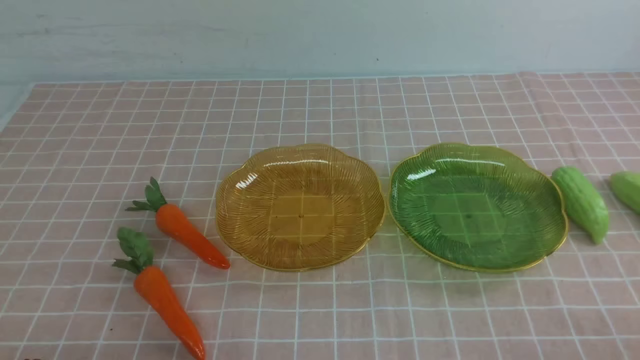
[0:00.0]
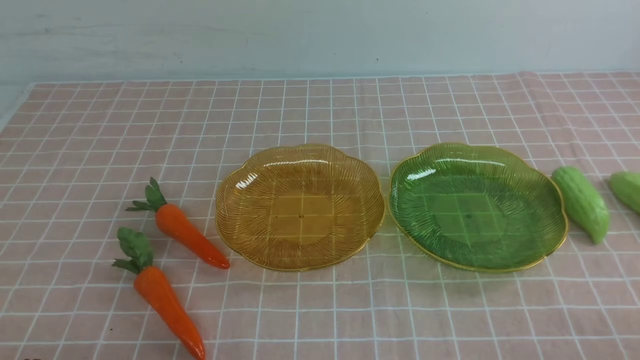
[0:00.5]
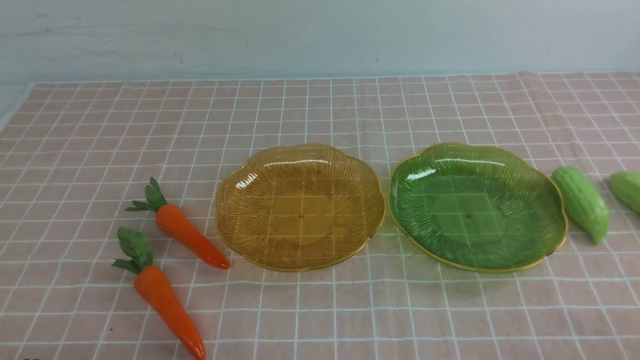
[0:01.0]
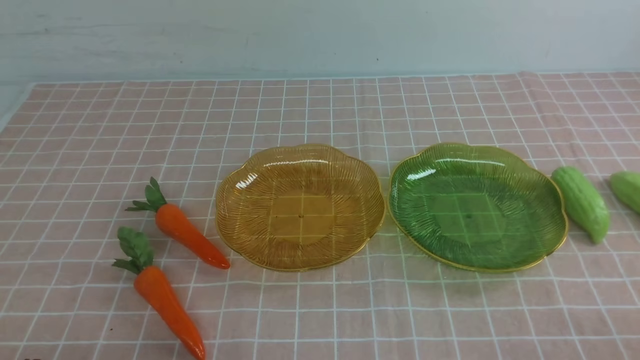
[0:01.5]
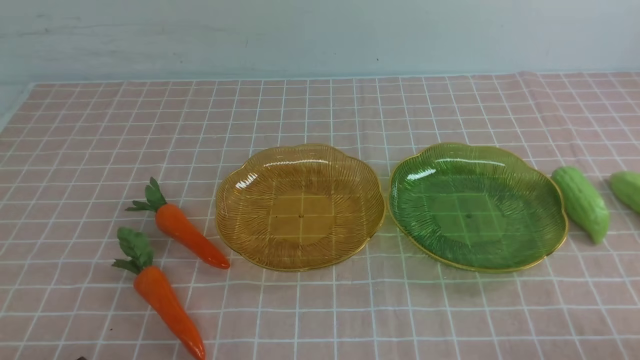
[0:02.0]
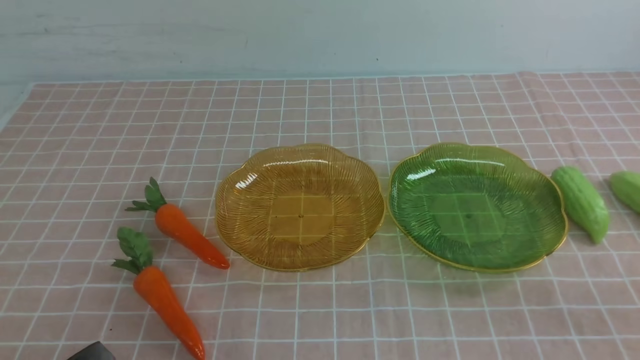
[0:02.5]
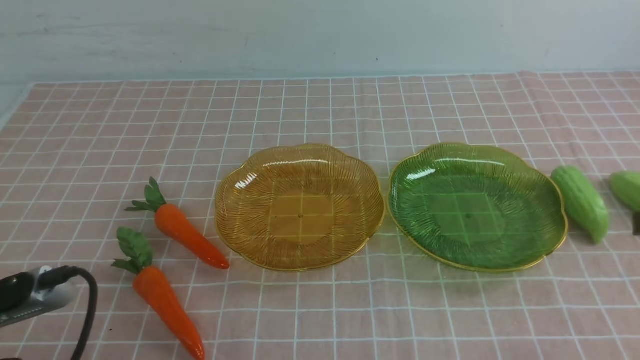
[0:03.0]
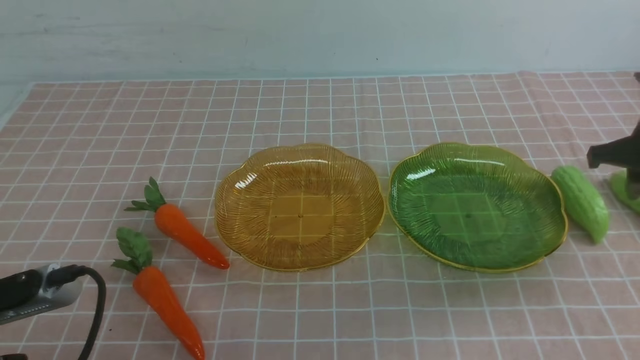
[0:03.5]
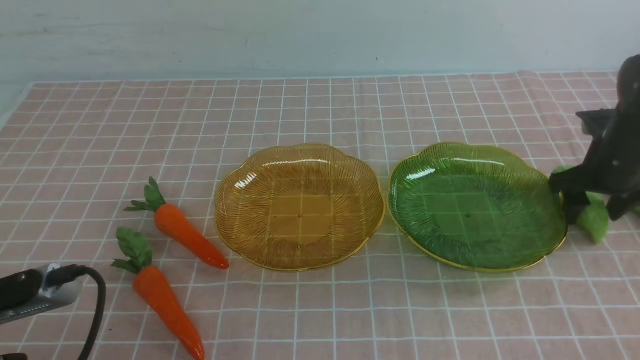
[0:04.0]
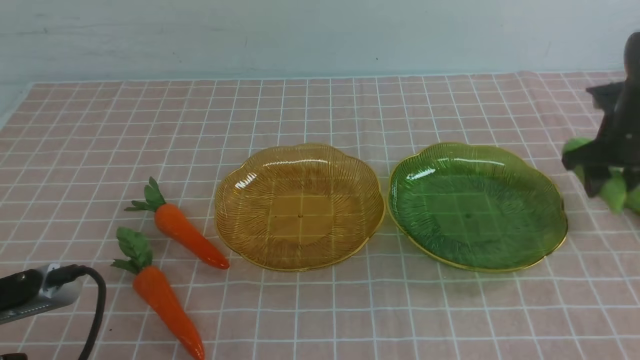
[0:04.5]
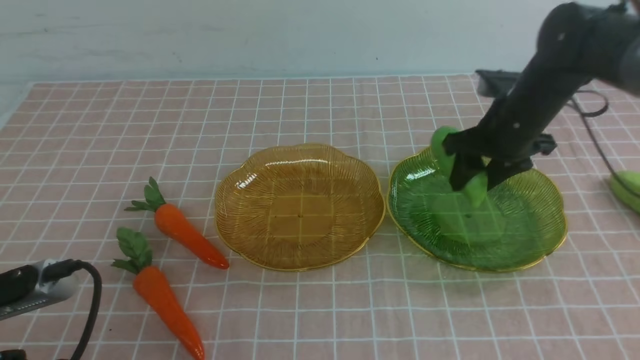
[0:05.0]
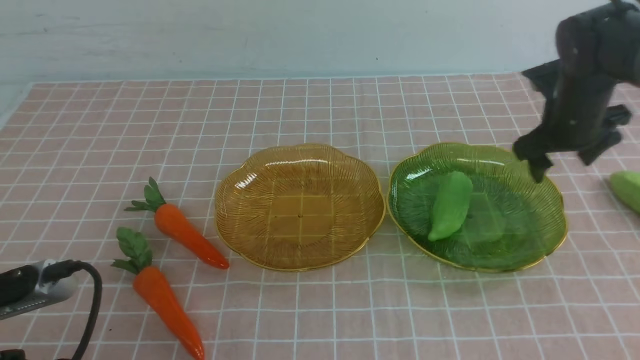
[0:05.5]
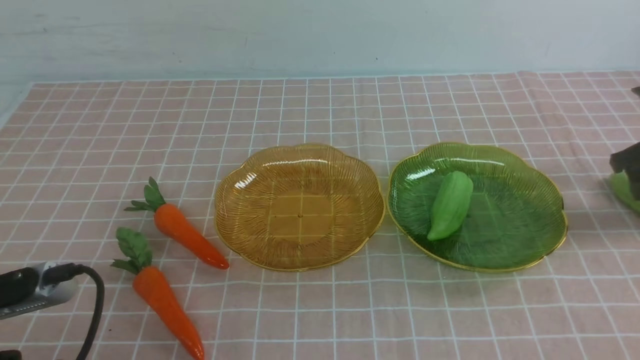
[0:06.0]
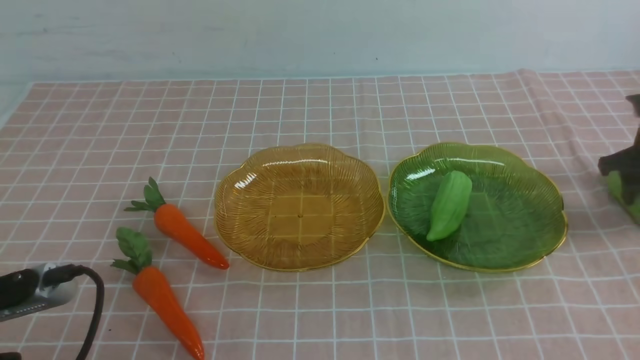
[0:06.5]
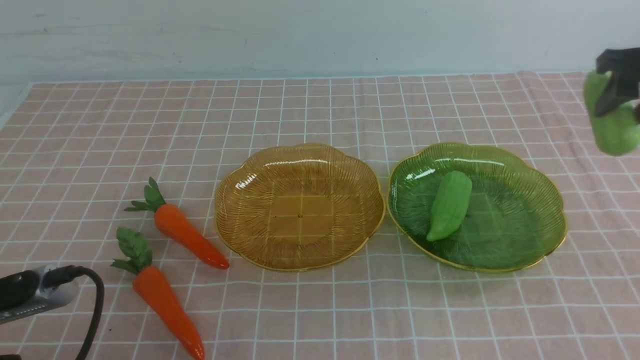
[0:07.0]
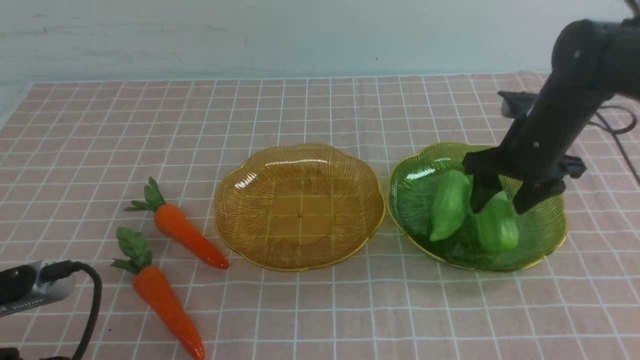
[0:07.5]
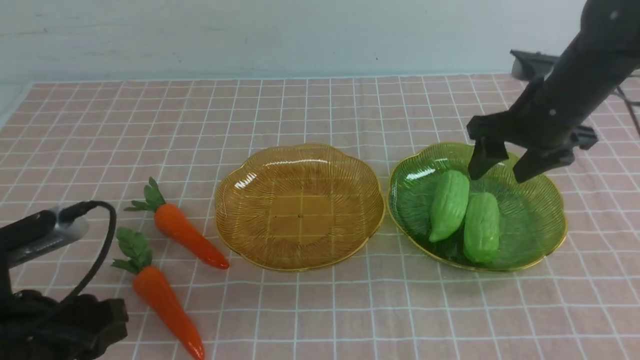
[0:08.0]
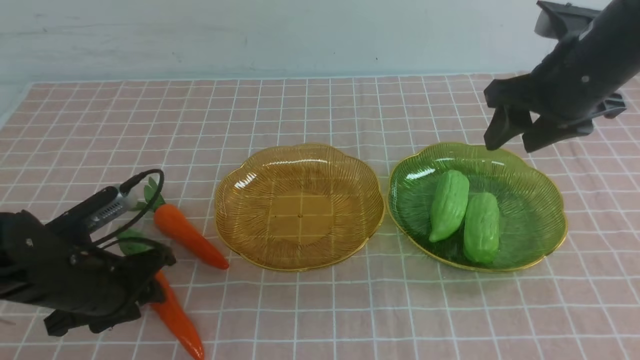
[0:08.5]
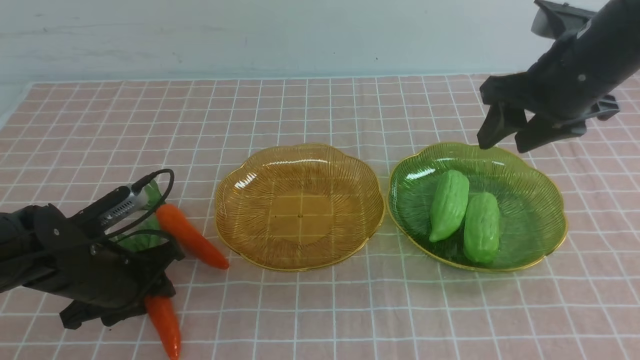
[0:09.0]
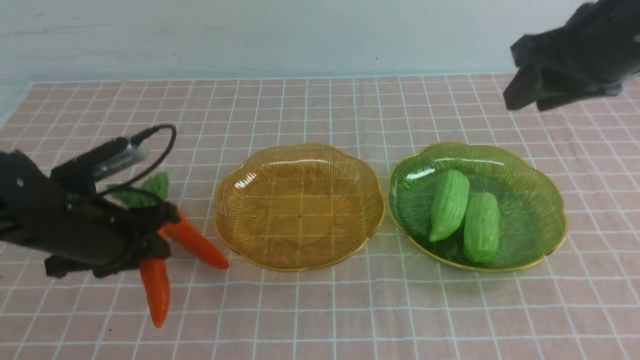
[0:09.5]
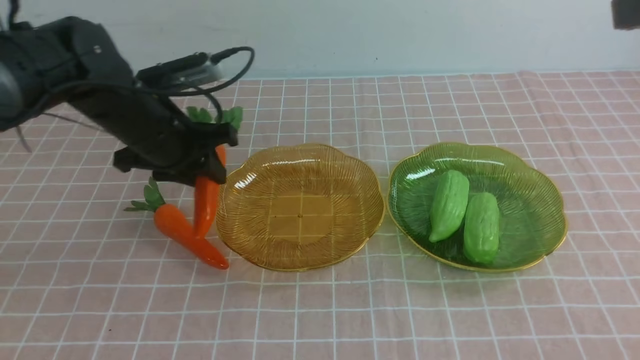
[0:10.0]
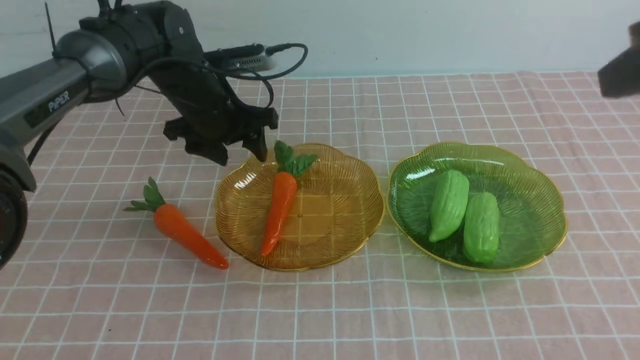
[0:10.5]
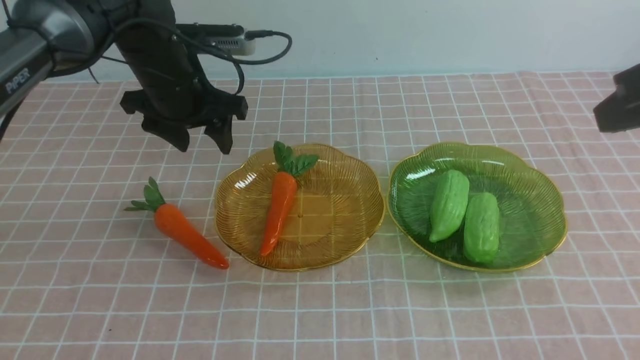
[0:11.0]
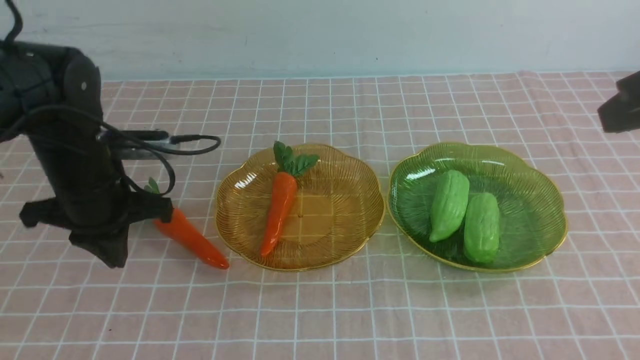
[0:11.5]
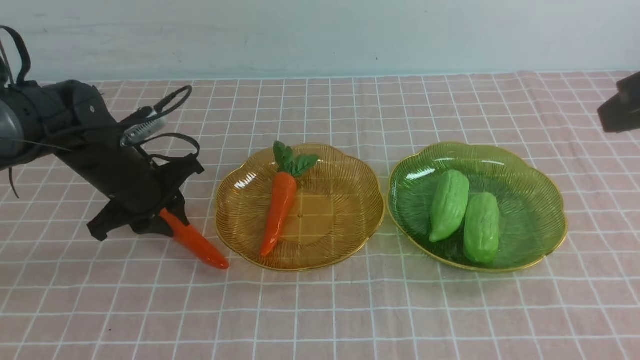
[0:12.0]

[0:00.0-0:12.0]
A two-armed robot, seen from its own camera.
Step, 0:00.0 to 0:07.5: use the right arm to grab a chayote and put it into the right plate.
0:02.0 to 0:04.0: The right gripper is displaced forward by approximately 35 cm, and opens up. The left gripper heads upward, covering some 5 cm.
0:04.0 to 0:06.0: The right gripper heads upward, covering some 5 cm, and reaches some 10 cm to the left, then returns.
0:06.0 to 0:08.0: The left gripper shifts roughly 20 cm forward and downward, and opens up. The right gripper heads to the left, backward and upward, covering approximately 20 cm.
0:08.0 to 0:10.0: The left gripper moves forward, upward and to the right, approximately 20 cm. The right gripper heads backward and upward, covering about 15 cm, and closes its fingers.
0:10.0 to 0:12.0: The left gripper shifts approximately 15 cm downward, to the left and backward, and closes, then opens again.

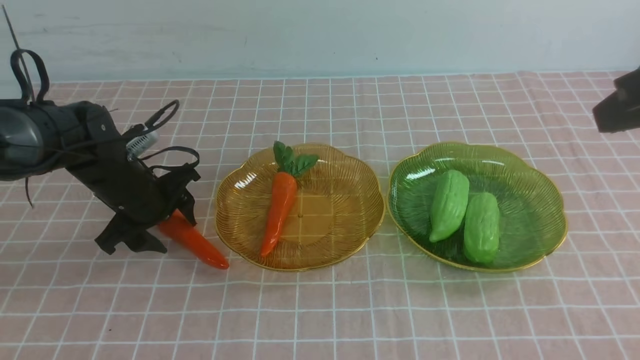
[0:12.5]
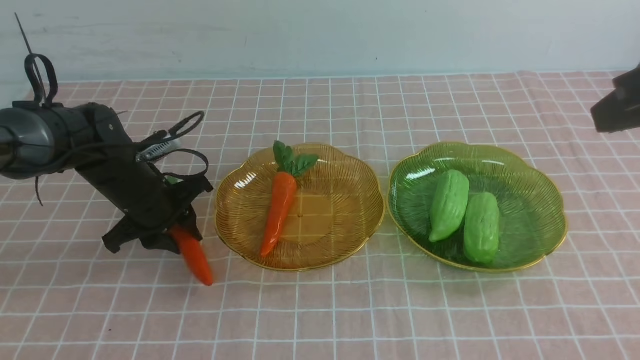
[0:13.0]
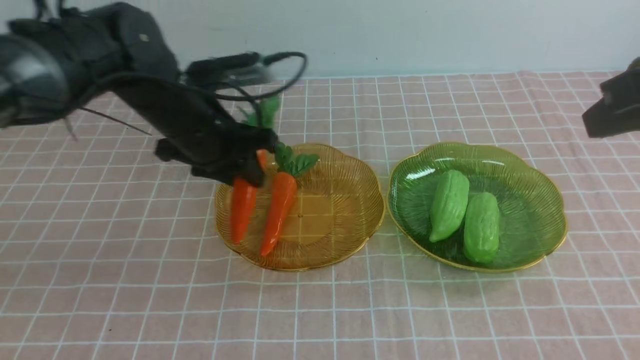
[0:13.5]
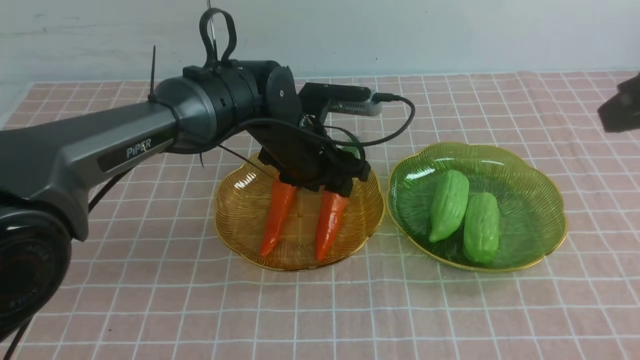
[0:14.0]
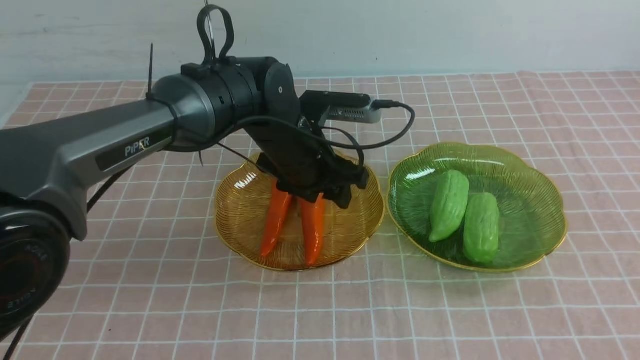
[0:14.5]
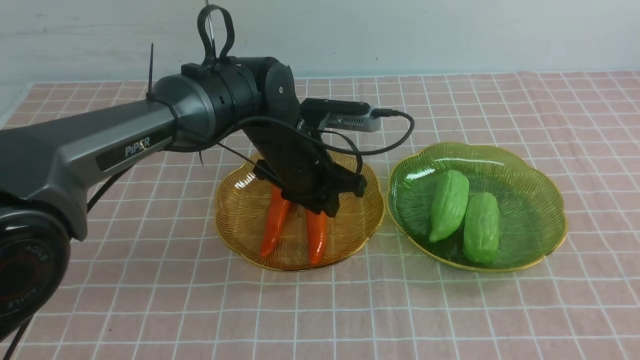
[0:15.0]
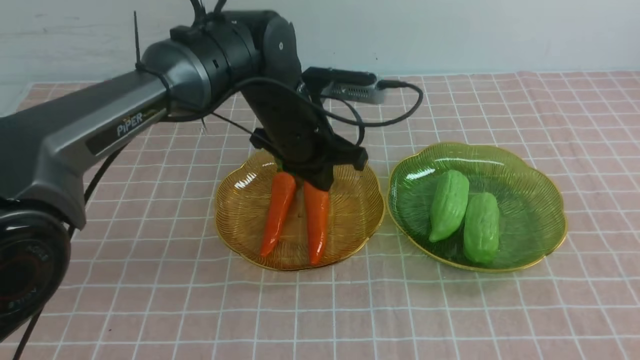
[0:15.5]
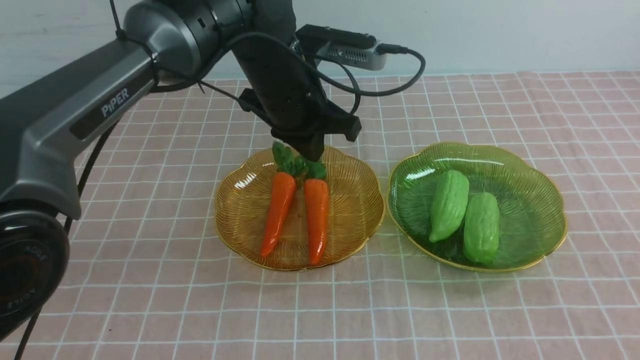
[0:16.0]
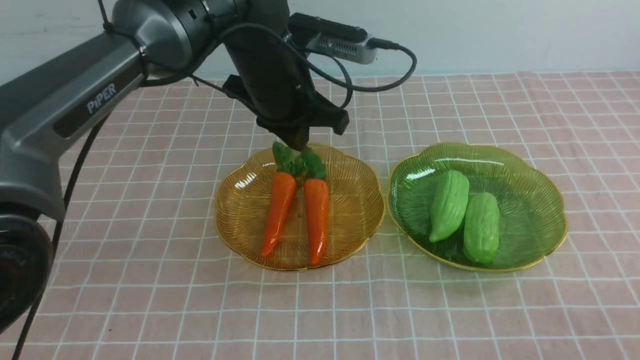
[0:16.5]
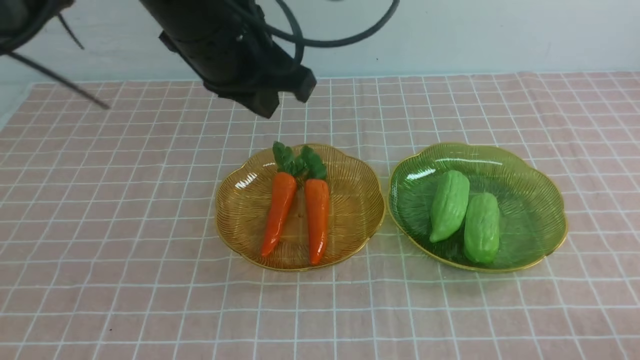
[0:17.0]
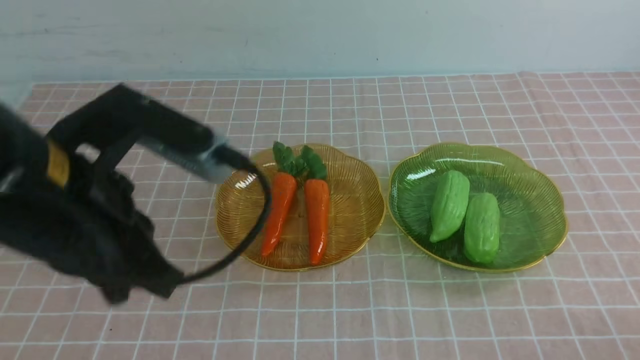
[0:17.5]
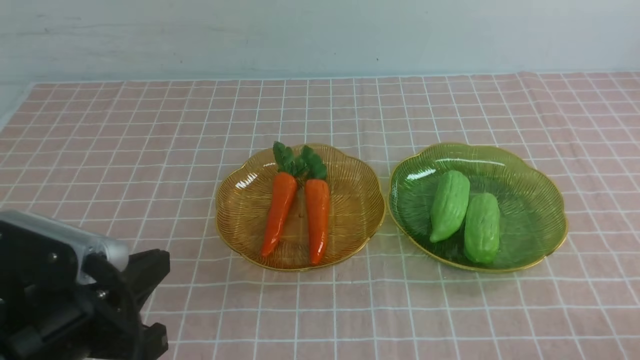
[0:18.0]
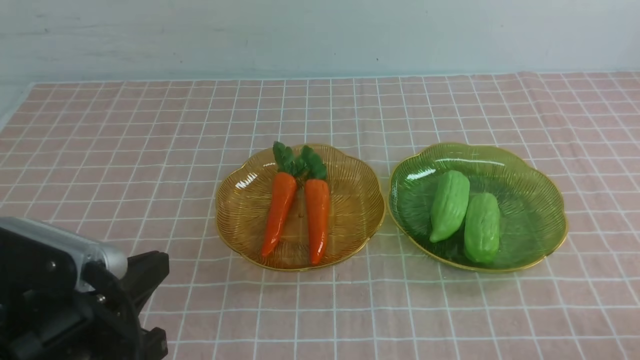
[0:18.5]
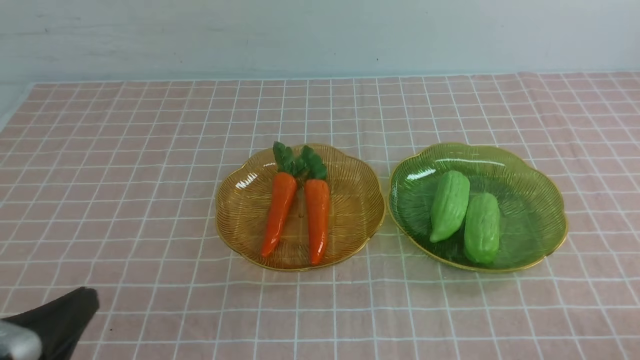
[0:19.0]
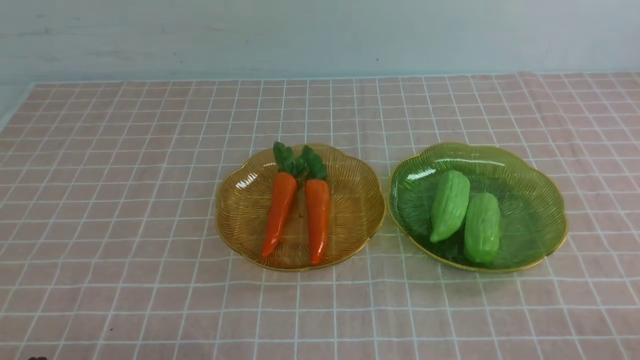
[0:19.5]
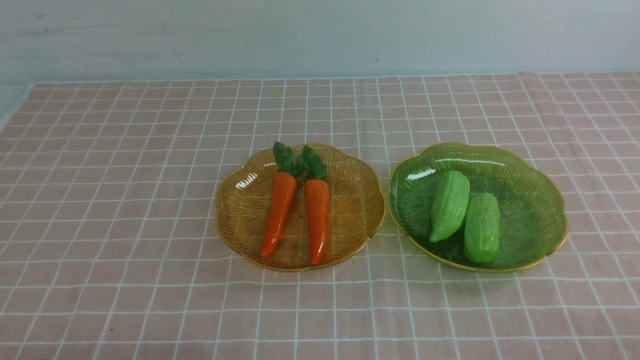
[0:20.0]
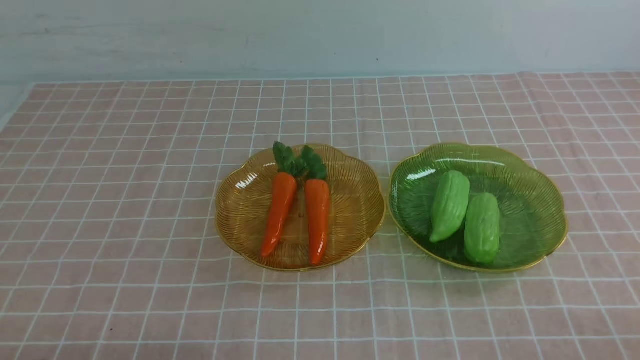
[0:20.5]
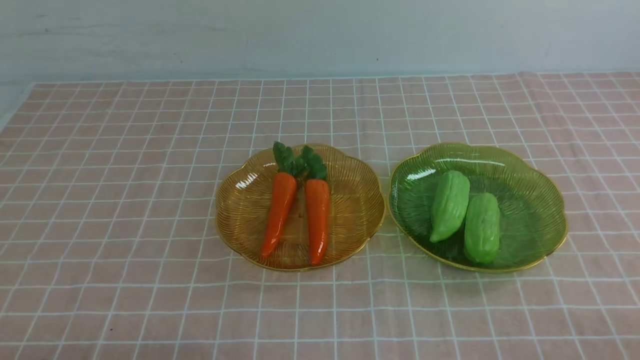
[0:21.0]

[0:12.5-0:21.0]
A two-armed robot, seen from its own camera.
0:12.5 to 0:14.5: The left gripper shifts approximately 20 cm to the right. Meanwhile the right gripper heads backward, covering roughly 15 cm.
0:14.5 to 0:16.5: The left gripper shifts some 10 cm upward, and closes its fingers. Meanwhile the right gripper goes some 20 cm downward.
0:16.5 to 0:19.0: The left gripper is displaced backward and to the left by some 35 cm.
0:19.0 to 0:21.0: The left gripper moves downward, some 5 cm.
